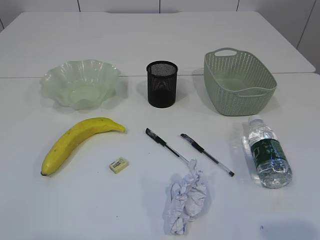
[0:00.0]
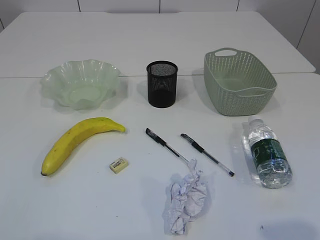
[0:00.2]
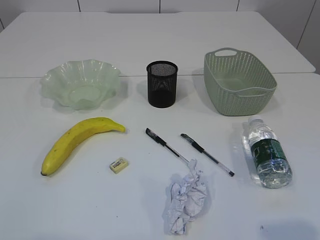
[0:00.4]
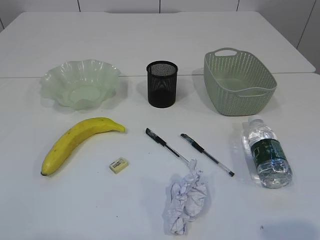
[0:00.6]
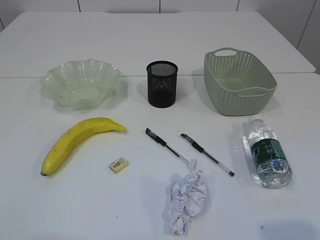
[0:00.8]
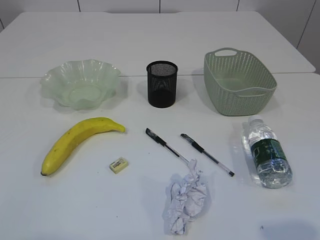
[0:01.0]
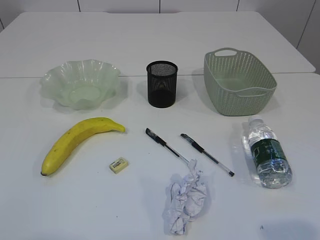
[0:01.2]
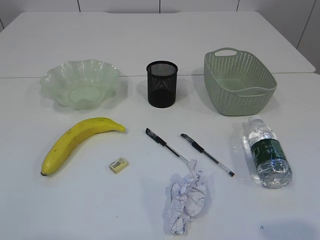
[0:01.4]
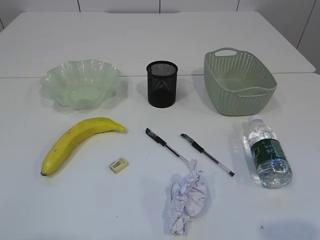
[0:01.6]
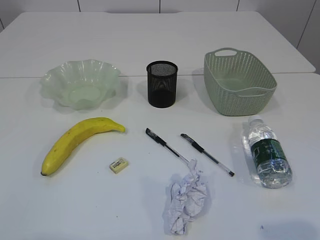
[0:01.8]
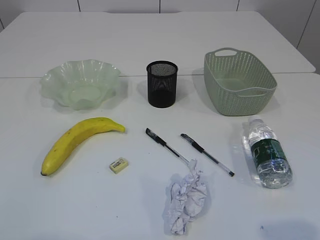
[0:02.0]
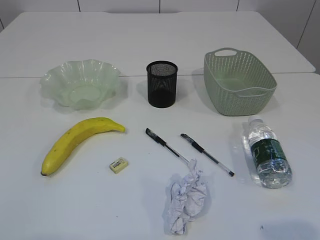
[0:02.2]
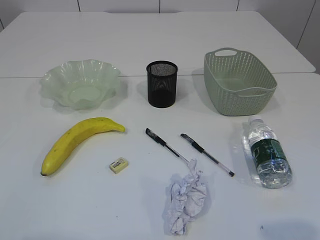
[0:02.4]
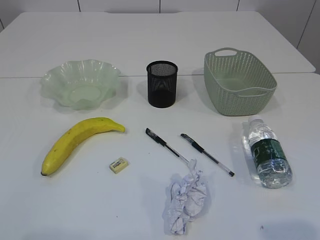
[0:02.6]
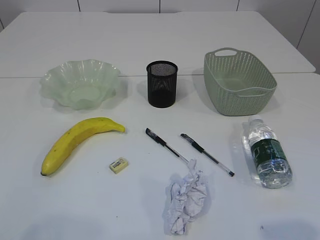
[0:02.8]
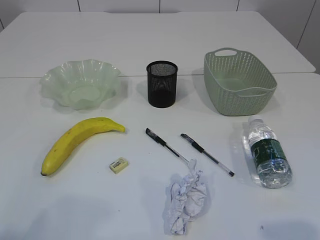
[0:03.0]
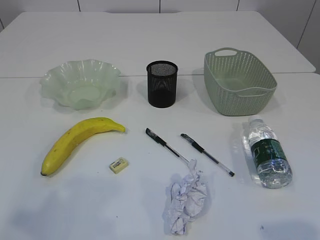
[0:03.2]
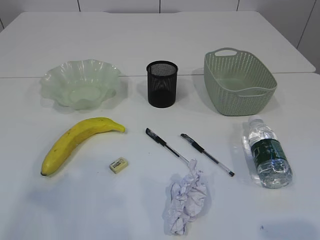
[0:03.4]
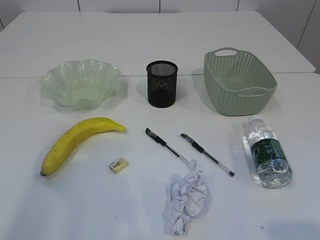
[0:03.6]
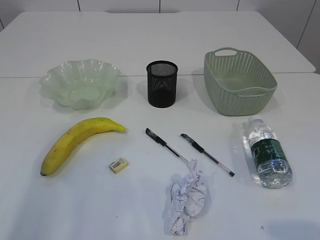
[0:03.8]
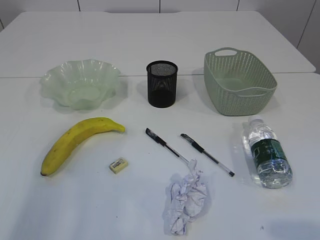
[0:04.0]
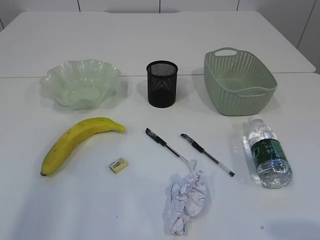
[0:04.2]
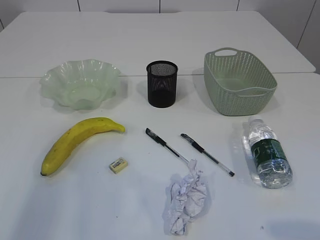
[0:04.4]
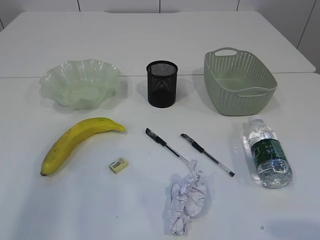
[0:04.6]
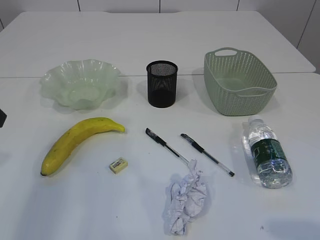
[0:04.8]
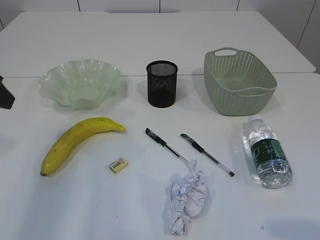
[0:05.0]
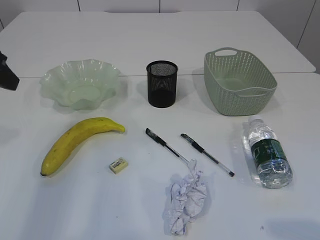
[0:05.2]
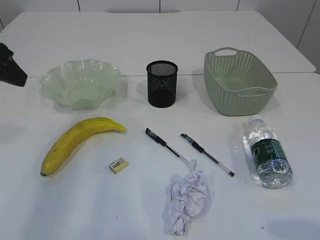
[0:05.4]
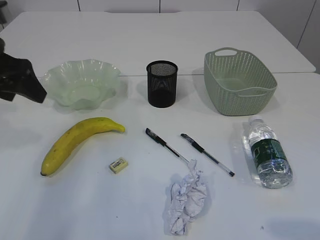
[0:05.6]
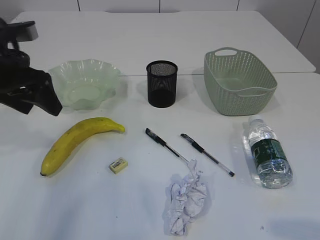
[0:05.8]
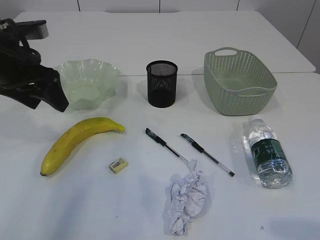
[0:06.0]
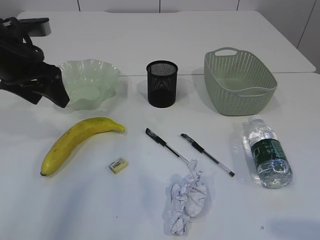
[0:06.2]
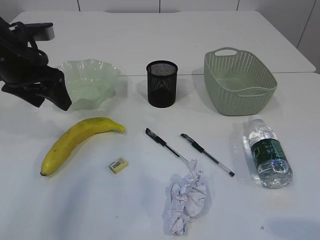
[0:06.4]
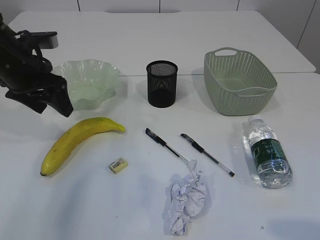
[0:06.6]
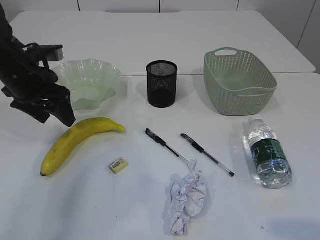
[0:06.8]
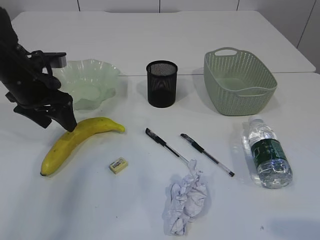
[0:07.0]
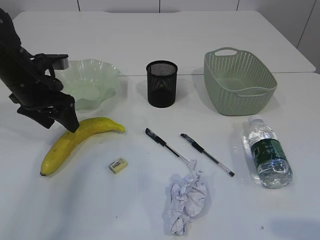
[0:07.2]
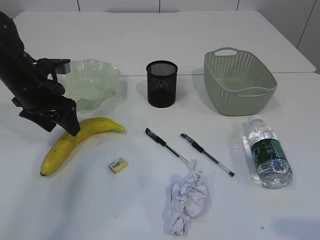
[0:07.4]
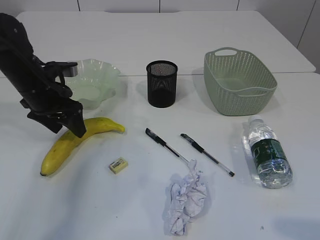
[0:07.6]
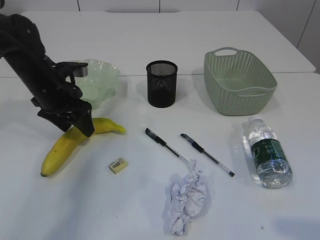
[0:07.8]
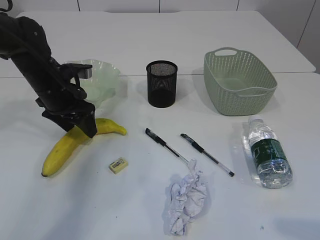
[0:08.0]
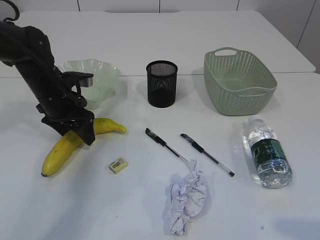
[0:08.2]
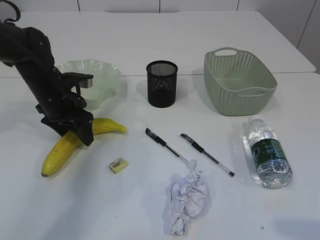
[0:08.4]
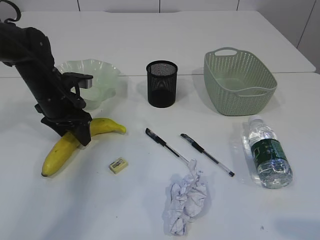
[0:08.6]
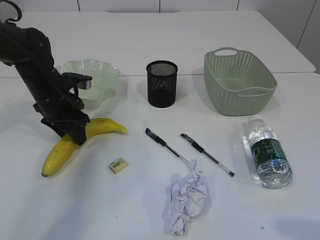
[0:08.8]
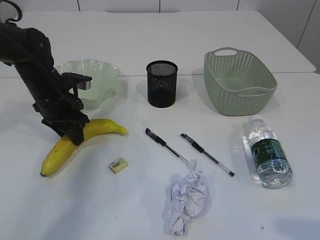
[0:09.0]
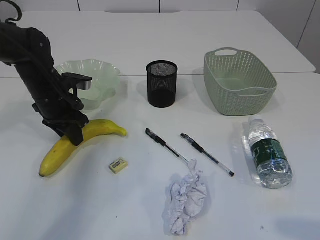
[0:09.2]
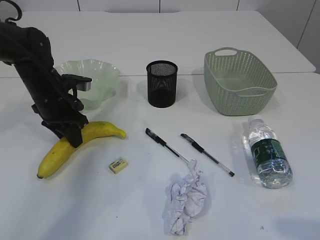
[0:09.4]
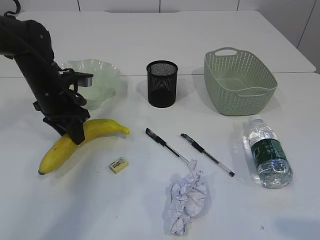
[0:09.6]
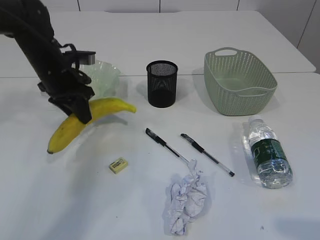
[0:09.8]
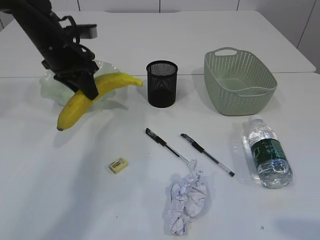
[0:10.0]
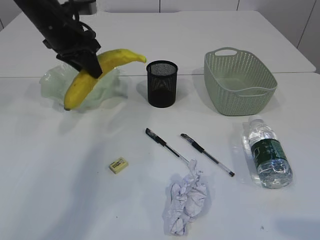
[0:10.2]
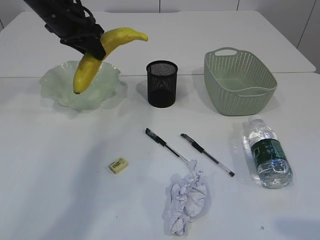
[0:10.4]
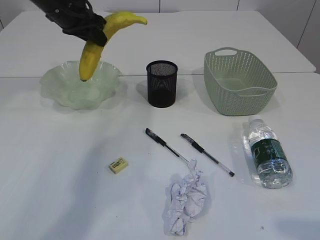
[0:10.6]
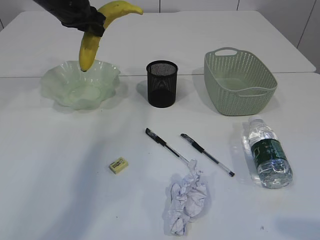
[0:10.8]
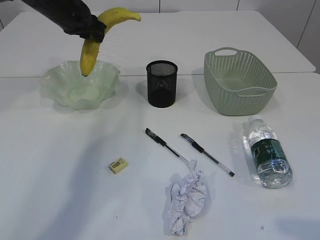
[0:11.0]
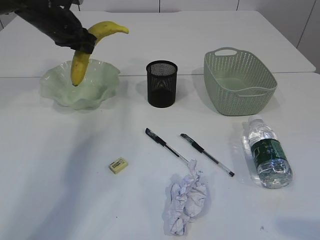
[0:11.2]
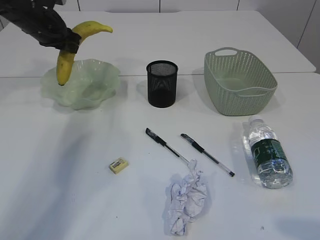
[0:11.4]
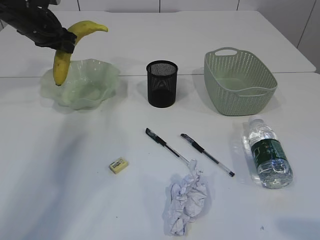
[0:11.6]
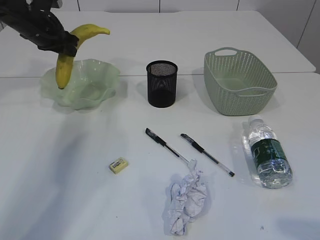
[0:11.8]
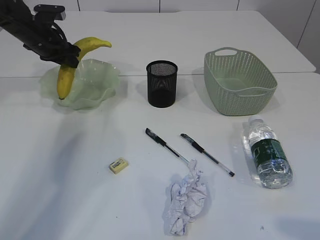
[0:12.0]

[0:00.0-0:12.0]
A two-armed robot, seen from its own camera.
0:03.0 to 0:04.4: The left gripper travels forward by roughly 15 cm.
0:04.4 to 0:06.0: The left gripper heads forward, covering about 15 cm, and opens up.
0:06.0 to 0:07.6: The left gripper moves downward, roughly 10 cm.
0:07.6 to 0:09.0: The left gripper closes its fingers.
0:09.0 to 0:10.4: The left gripper goes approximately 15 cm upward.
0:10.4 to 0:12.0: The left gripper travels to the left, downward and forward by some 15 cm.

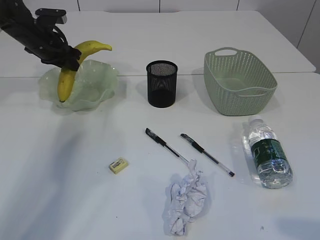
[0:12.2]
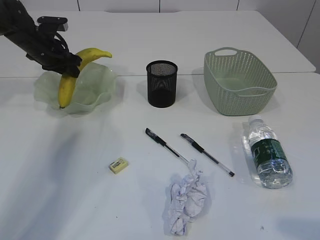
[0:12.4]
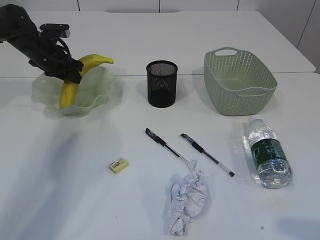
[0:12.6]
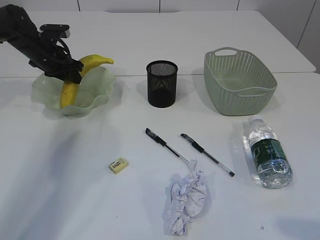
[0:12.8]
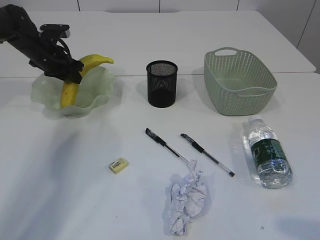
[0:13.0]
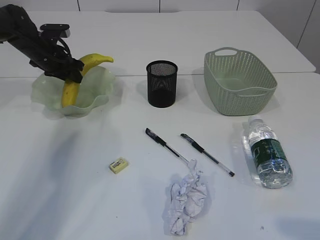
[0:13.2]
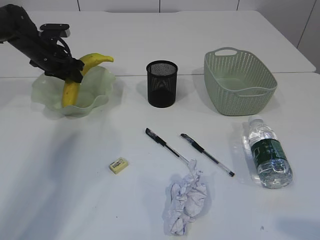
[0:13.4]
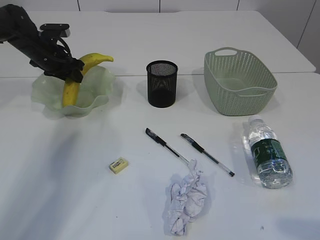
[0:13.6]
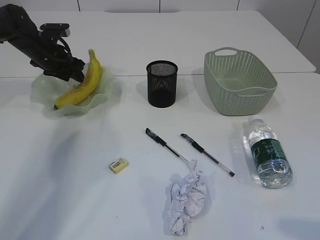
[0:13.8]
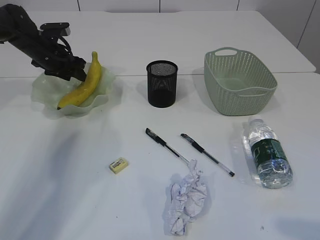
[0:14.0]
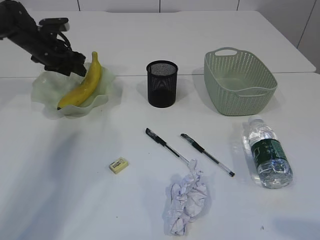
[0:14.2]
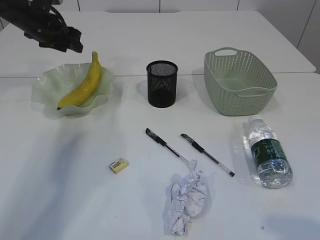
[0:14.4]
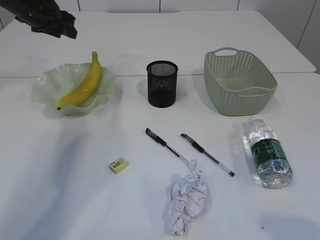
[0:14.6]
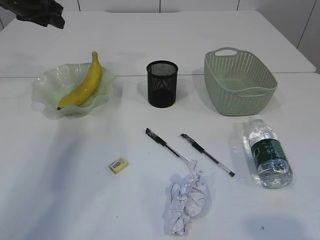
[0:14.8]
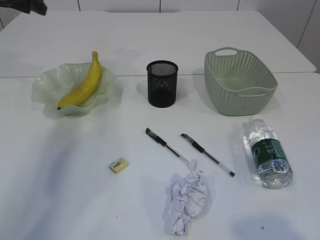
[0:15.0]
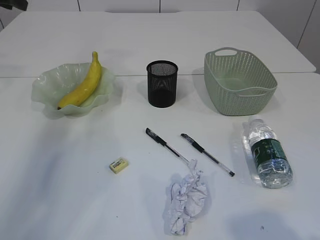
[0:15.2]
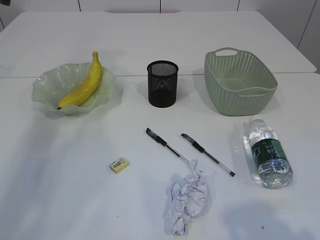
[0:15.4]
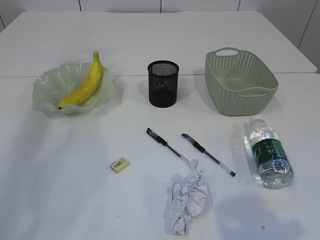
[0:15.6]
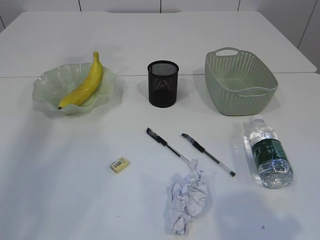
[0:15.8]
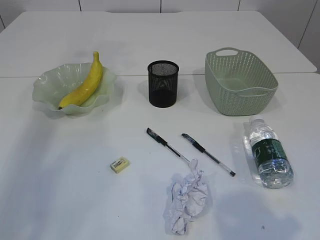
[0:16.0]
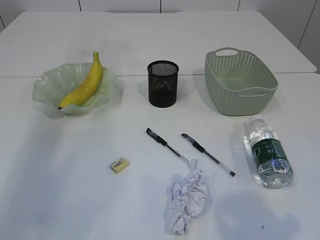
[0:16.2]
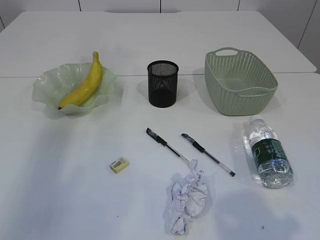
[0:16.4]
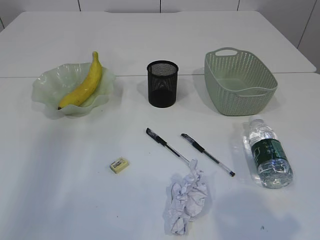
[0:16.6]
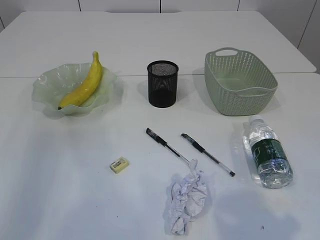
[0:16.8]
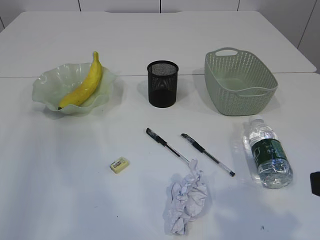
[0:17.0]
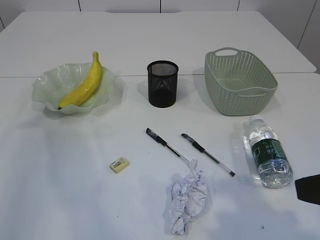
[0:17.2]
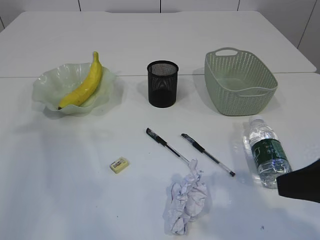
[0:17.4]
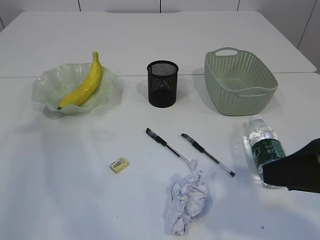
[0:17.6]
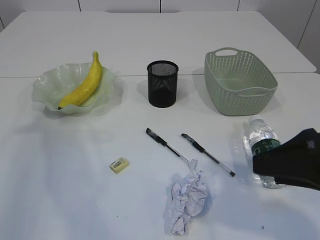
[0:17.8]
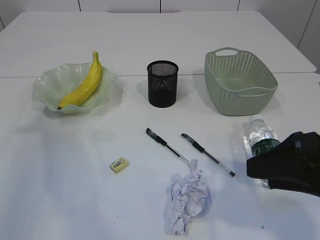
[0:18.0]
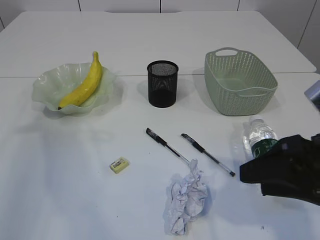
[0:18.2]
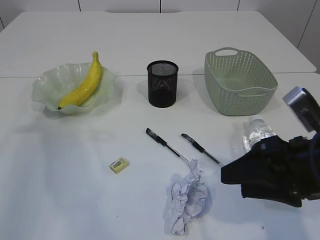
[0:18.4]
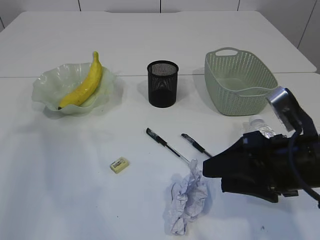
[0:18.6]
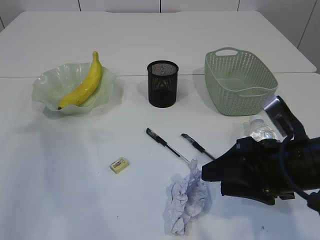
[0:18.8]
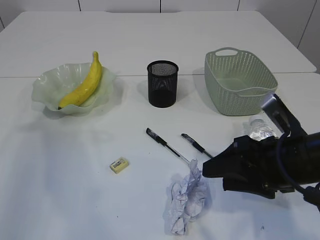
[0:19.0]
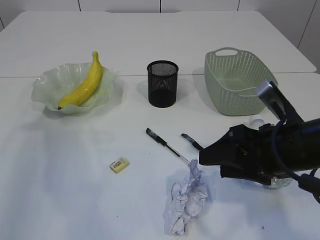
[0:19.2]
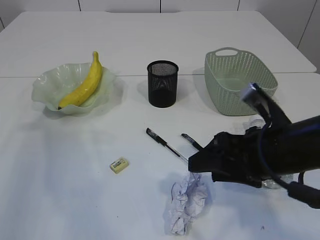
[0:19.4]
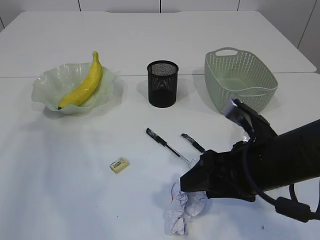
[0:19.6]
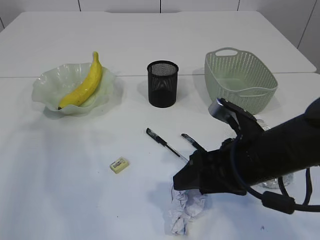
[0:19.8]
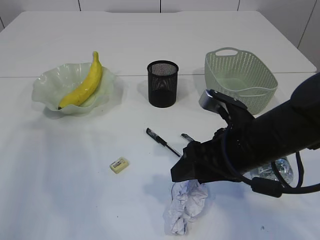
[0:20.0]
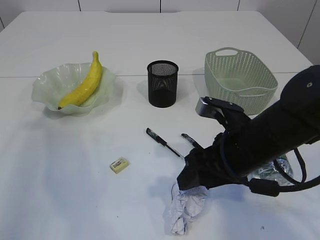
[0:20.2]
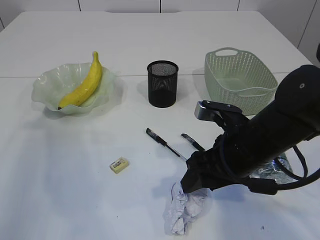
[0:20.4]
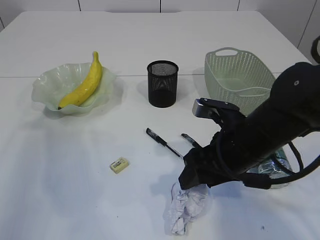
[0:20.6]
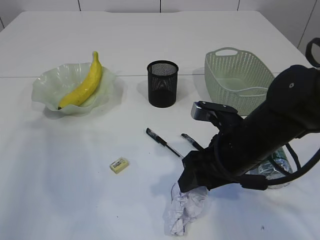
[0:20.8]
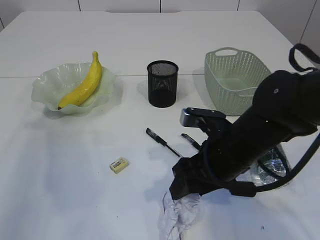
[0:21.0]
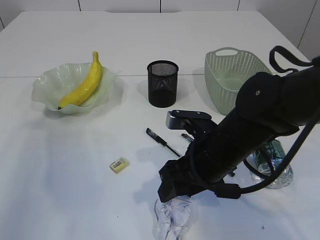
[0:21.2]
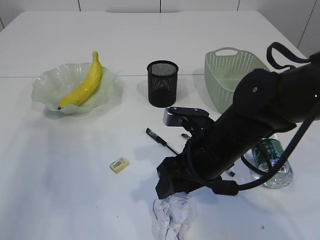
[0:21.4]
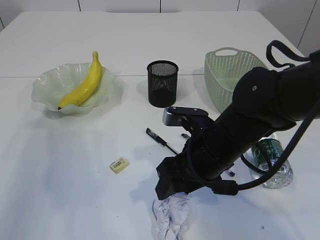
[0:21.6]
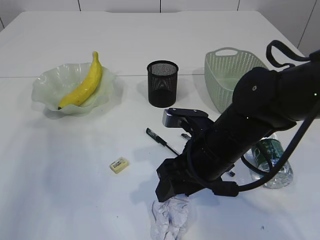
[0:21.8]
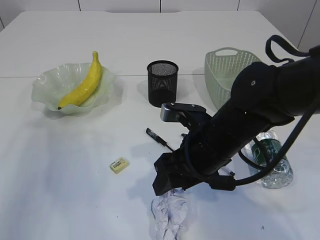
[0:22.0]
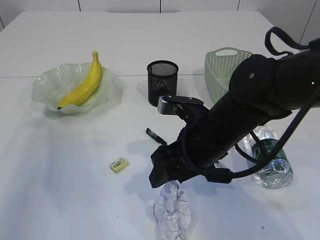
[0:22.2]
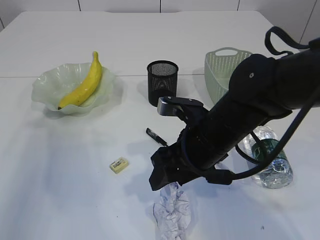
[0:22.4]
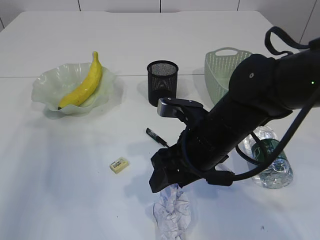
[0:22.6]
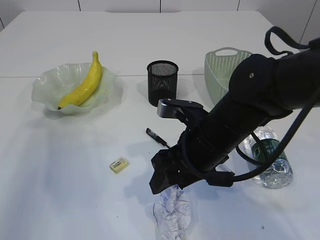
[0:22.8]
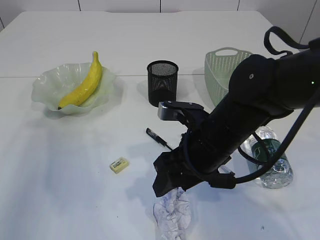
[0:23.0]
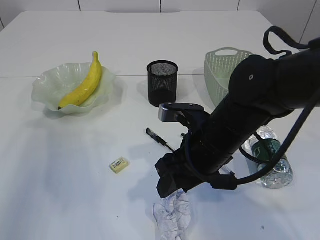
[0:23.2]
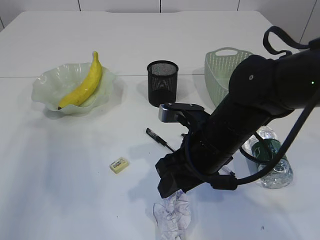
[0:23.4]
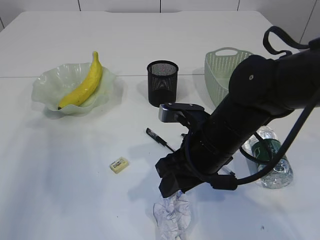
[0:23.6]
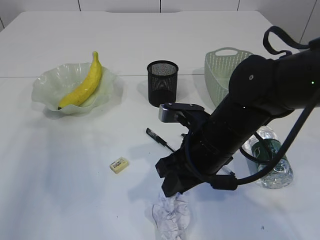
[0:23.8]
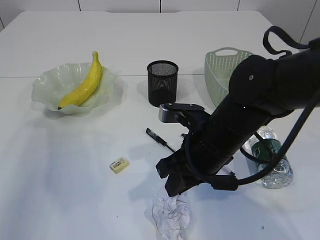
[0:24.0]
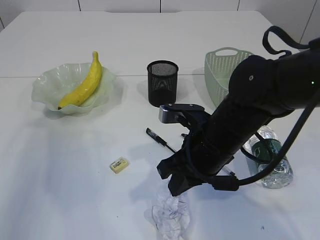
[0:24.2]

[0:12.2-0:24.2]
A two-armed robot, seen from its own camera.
Step, 0:12.2 to 0:14.2: Place the banana in the plate.
0:12.2 to 0:13.8: The grippers stay close to where they were, moving slightly.
0:13.8 to 0:15.2: The left gripper travels upward and to the left by roughly 20 cm.
0:16.6 to 0:18.2: The right gripper is displaced forward and downward by roughly 10 cm.
0:18.2 to 0:19.8: The right gripper heads to the left and downward, covering about 10 cm.
0:19.8 to 0:21.2: The right gripper ends up some 5 cm from where it was.
0:21.2 to 0:22.6: The grippers make only small movements.
0:22.6 to 0:24.2: The right gripper closes up.
